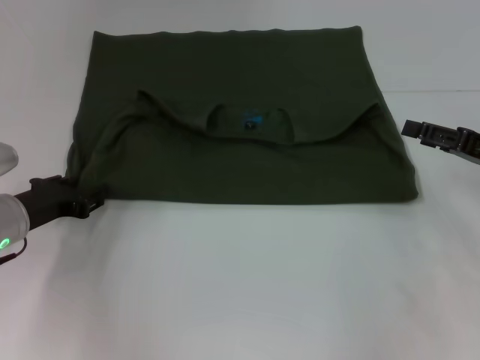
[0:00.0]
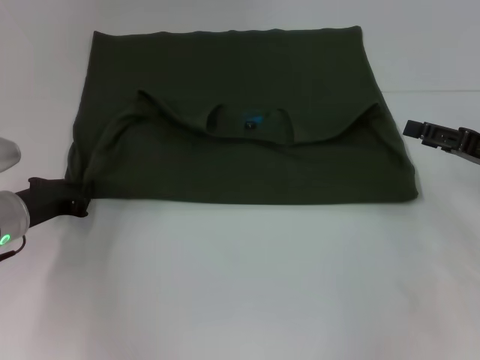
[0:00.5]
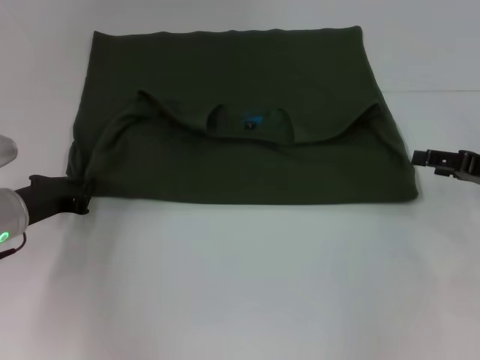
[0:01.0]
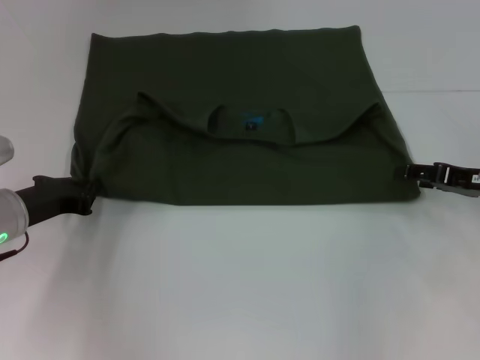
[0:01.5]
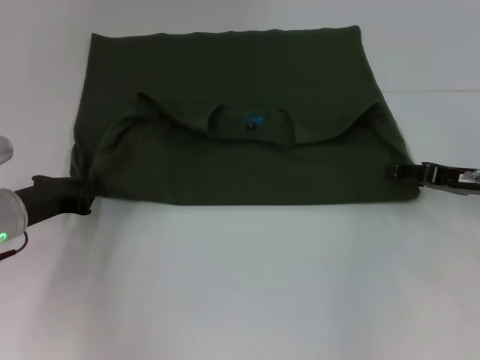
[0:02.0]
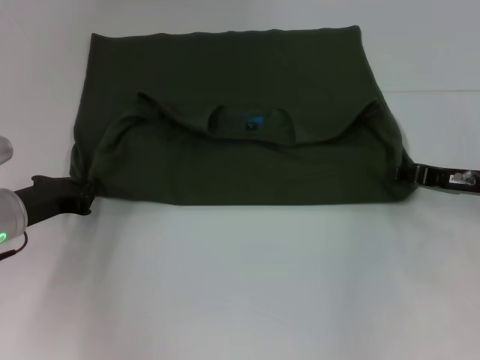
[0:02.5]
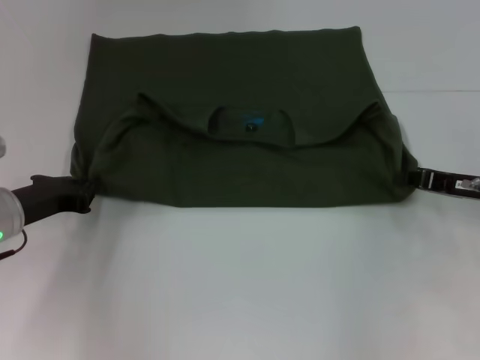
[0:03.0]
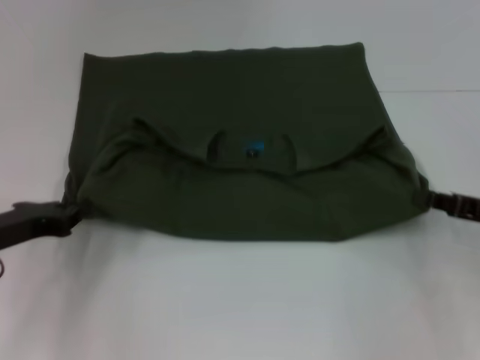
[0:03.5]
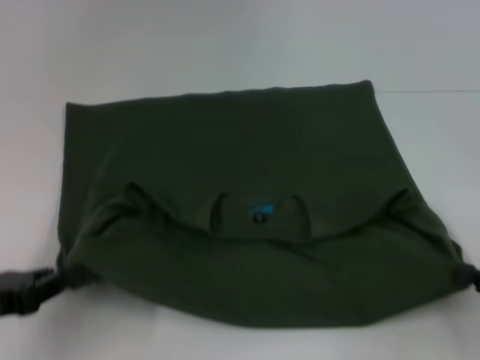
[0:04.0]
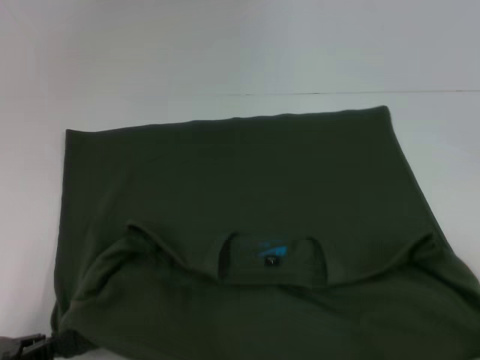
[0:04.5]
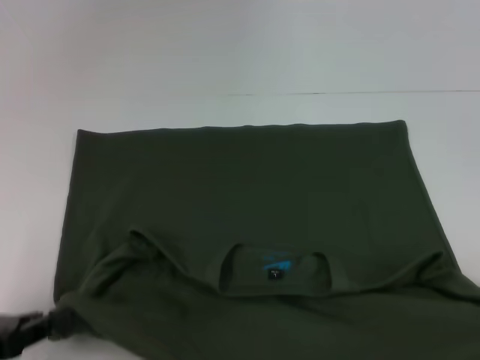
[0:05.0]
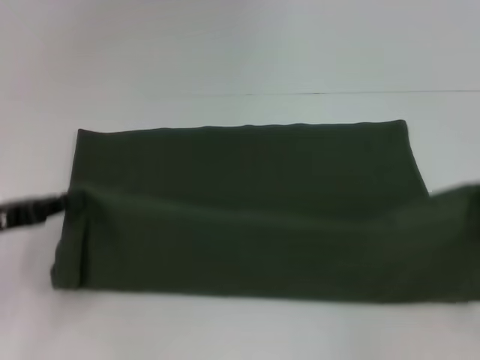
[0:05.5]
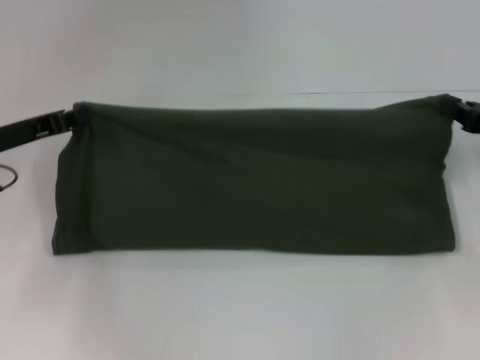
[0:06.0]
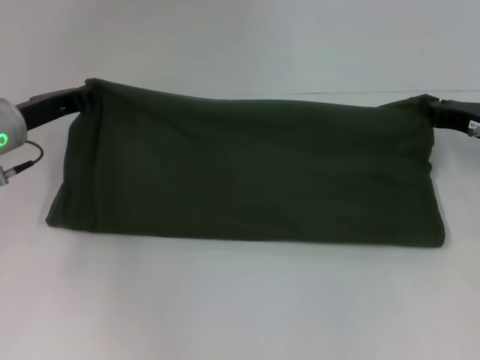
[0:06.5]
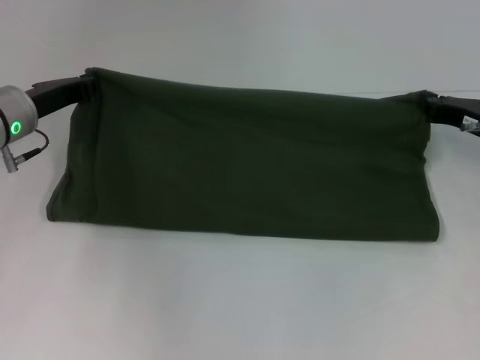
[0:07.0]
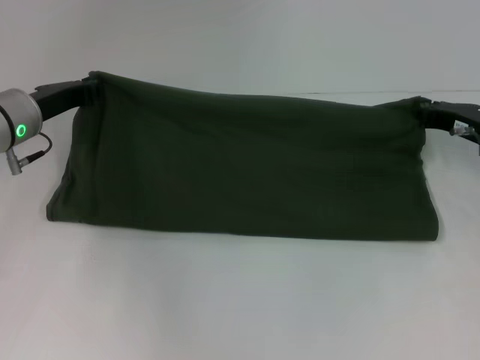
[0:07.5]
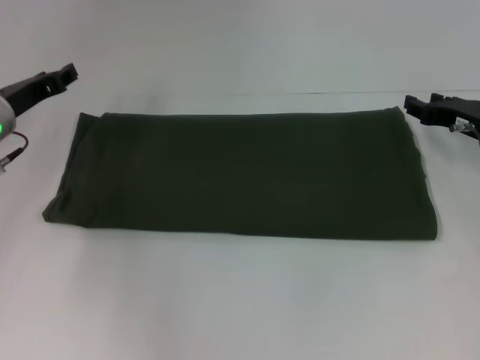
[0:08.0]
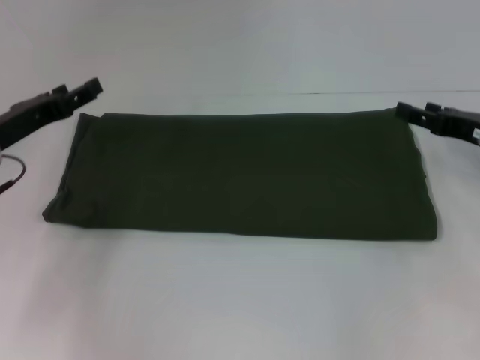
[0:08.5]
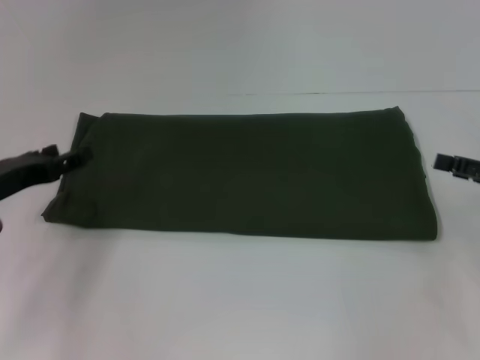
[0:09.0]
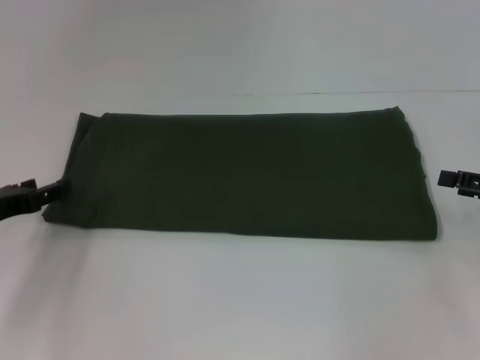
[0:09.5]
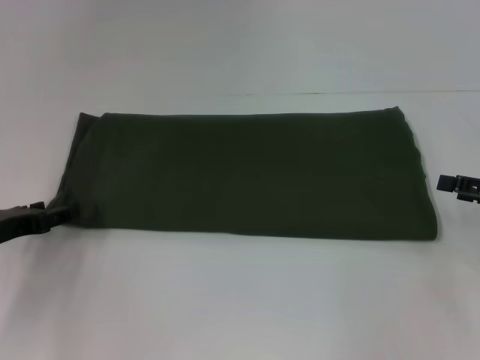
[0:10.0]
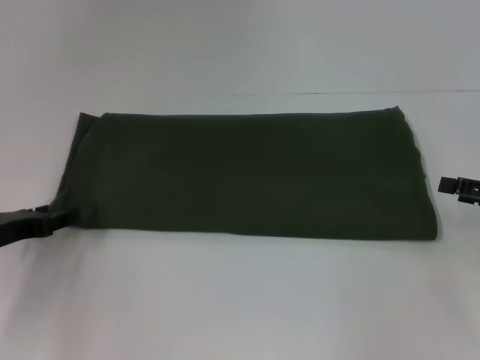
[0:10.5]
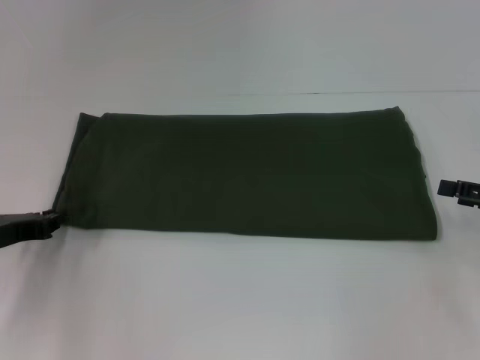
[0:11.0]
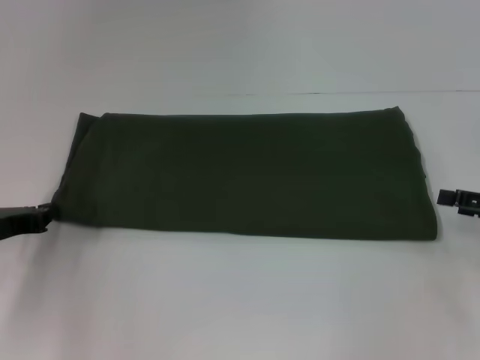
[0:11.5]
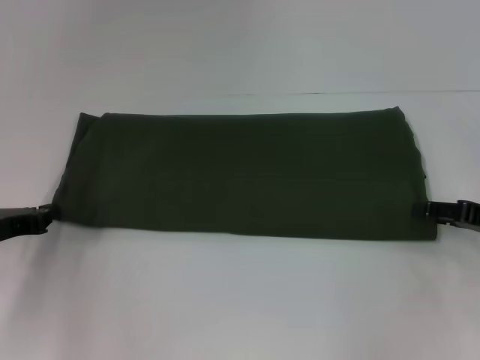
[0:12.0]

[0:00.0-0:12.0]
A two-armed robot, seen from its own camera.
Step, 0:00.0 to 0:04.5: Pull the clothes with your left hand.
Step, 0:00.0 to 0:04.5: Pull the clothes with your right hand.
Step, 0:05.0 to 0:07.5: Fold the clothes with your right hand.
0:00.0 to 0:02.0: The left gripper closes its fingers.
0:02.0 to 0:04.0: Both grippers move backward, approximately 15 cm. The right gripper closes up.
0:04.0 to 0:06.0: Both grippers travel together forward, approximately 15 cm.
0:06.0 to 0:08.0: The right gripper moves roughly 5 cm.
0:08.0 to 0:10.0: The right gripper goes roughly 15 cm backward and to the right, and opens its fingers; the left gripper moves backward, some 10 cm, and opens.

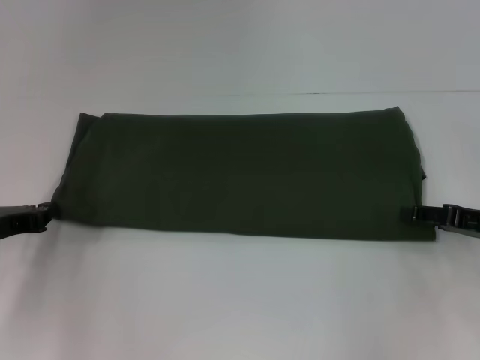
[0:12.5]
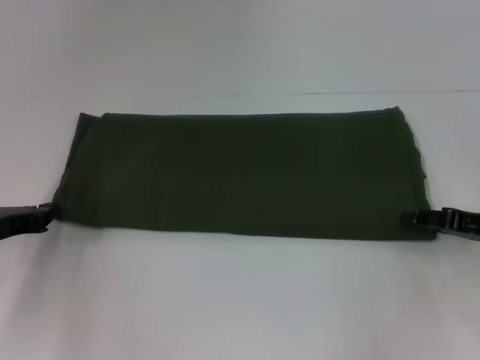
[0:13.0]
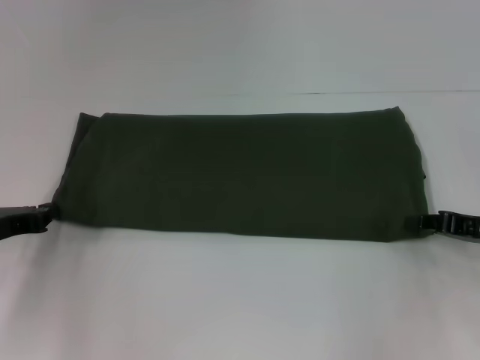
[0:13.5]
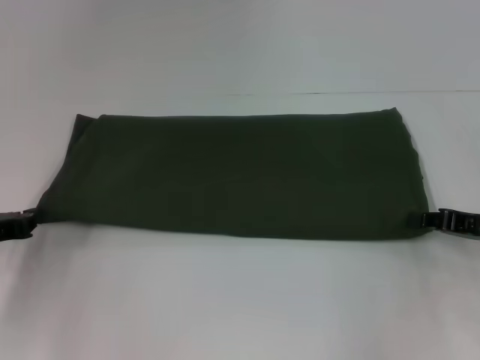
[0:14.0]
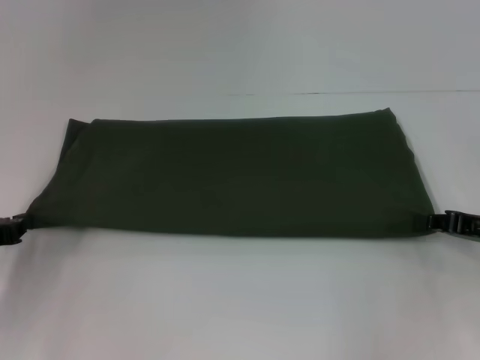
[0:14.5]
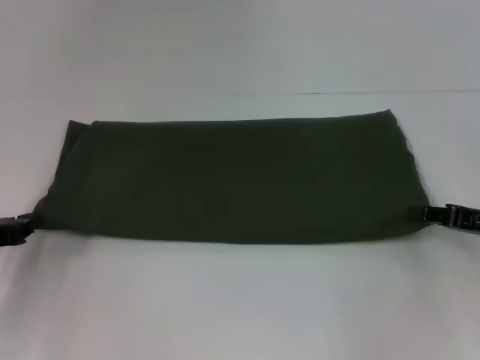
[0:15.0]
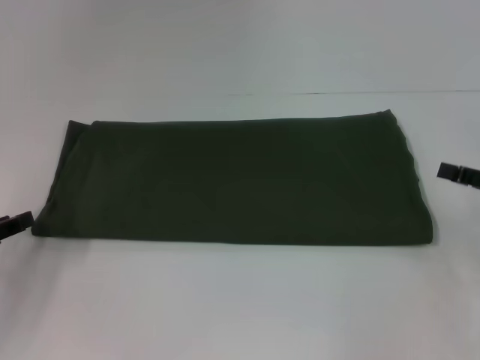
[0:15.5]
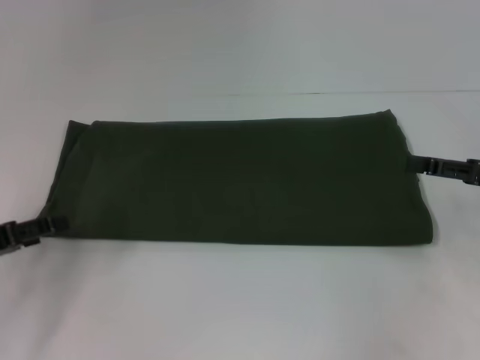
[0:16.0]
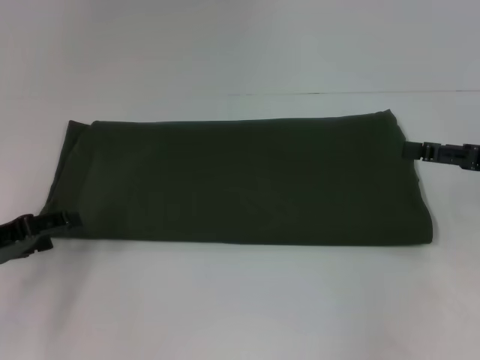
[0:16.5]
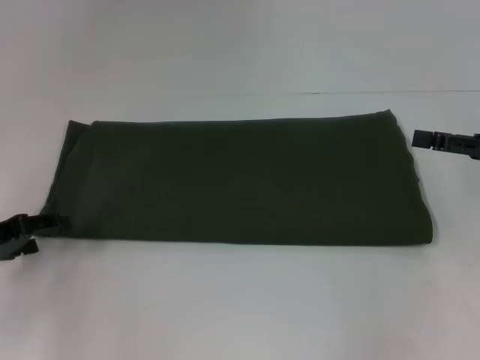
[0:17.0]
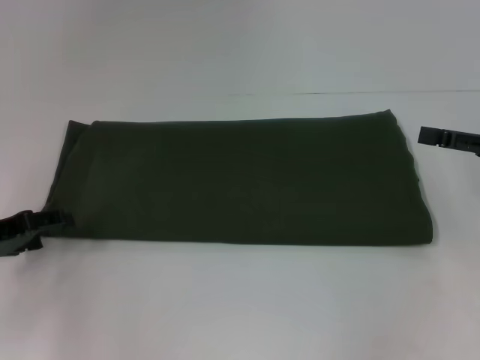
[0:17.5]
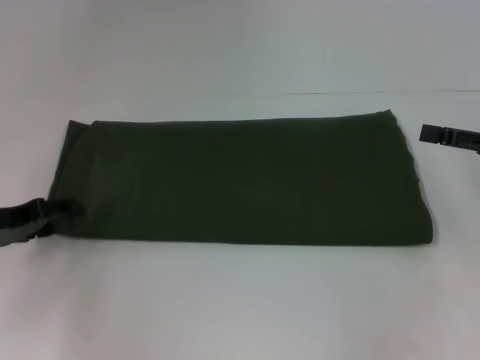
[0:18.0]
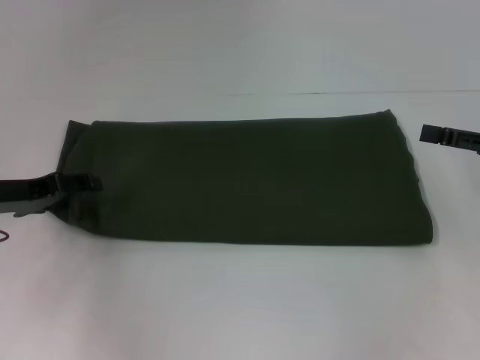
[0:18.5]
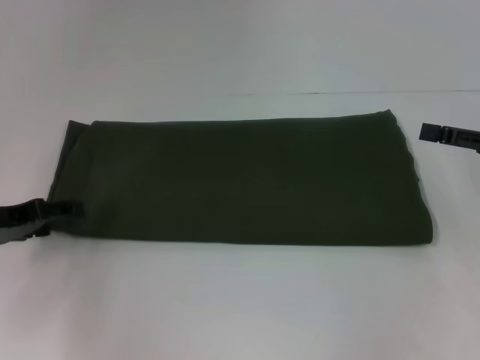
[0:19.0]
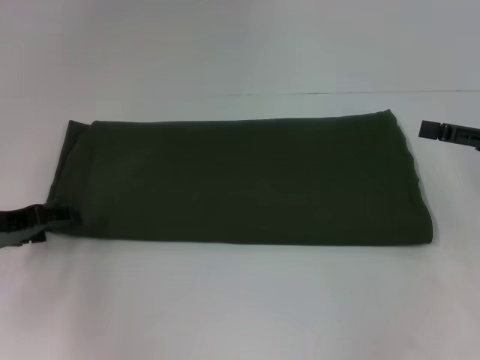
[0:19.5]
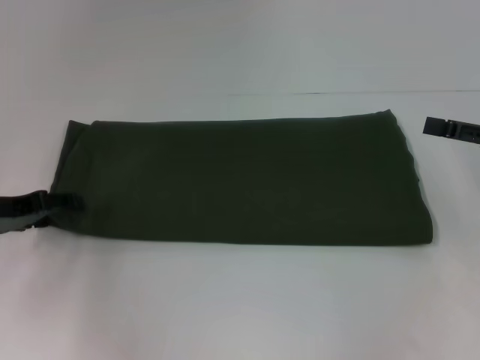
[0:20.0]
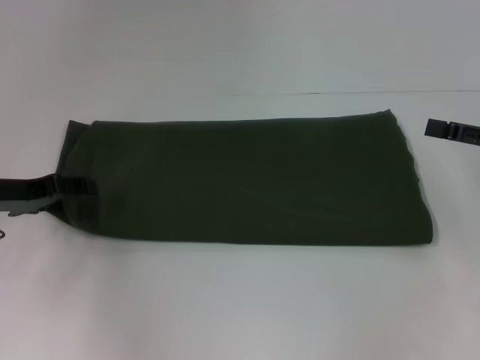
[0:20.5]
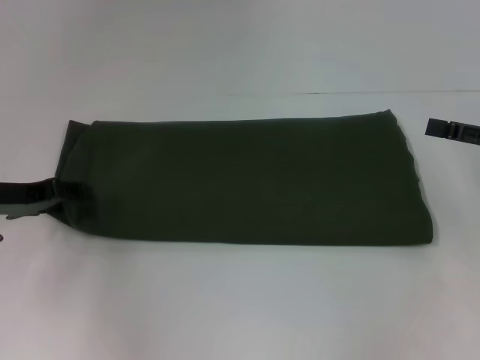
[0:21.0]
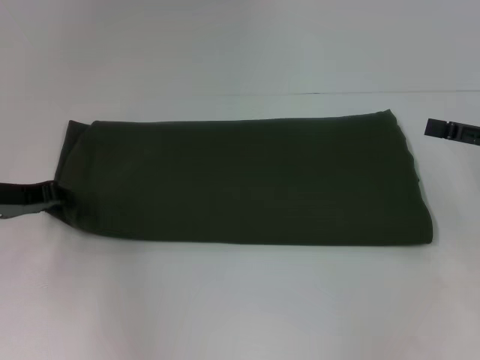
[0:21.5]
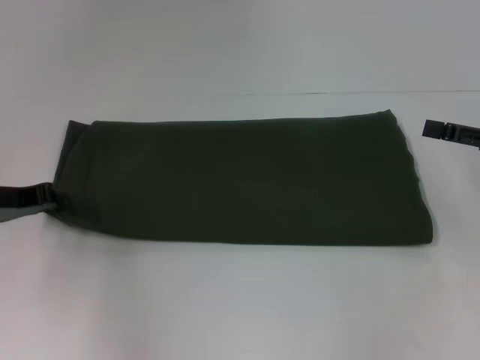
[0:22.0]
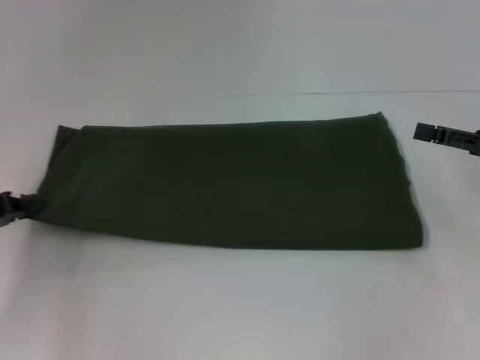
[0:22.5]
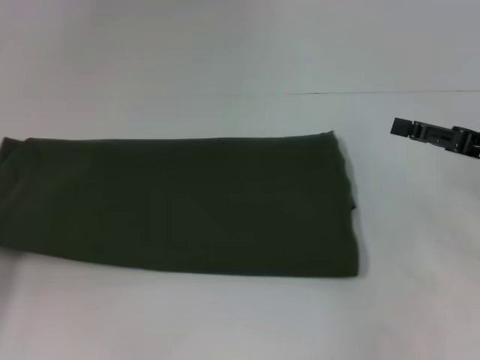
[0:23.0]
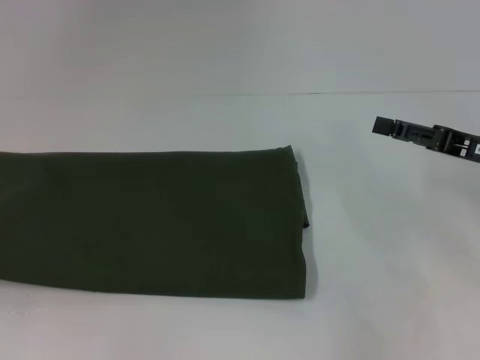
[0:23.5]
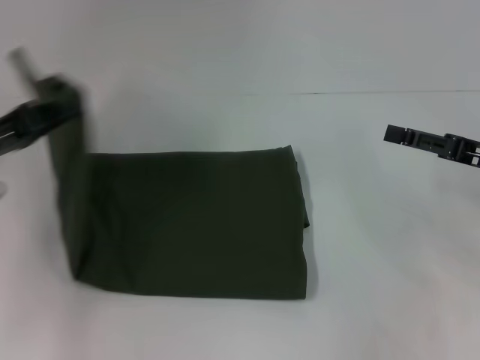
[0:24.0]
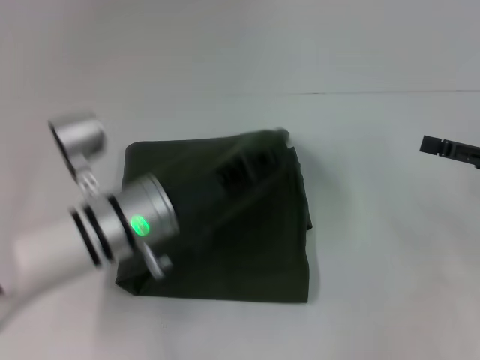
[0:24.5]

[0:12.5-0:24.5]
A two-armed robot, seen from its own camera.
0:12.5 to 0:14.5: The right gripper closes its fingers.
0:14.5 to 0:16.5: The right gripper goes approximately 5 cm upward, and opens. Meanwhile the left gripper opens up.
0:16.5 to 0:18.5: The left gripper moves forward, about 5 cm.
0:20.5 to 0:22.5: The left gripper changes place by approximately 5 cm, and closes its fingers.
0:22.5 to 0:24.5: The left gripper shifts some 20 cm to the right.

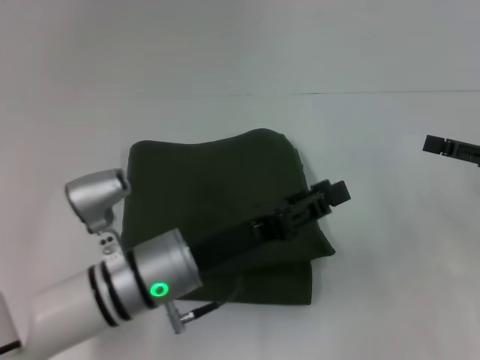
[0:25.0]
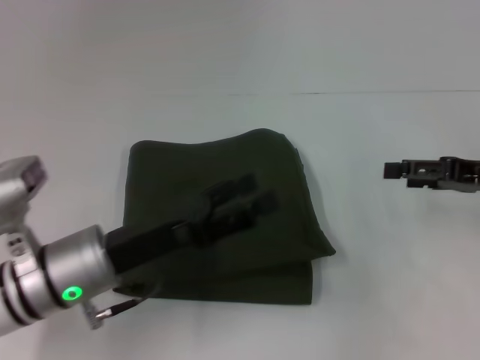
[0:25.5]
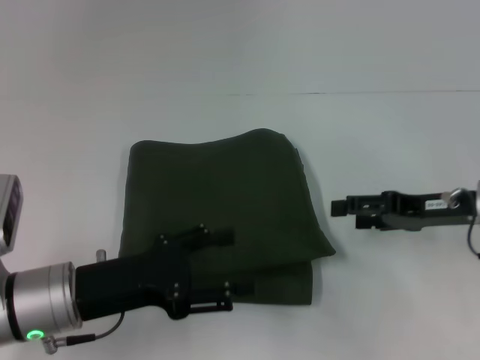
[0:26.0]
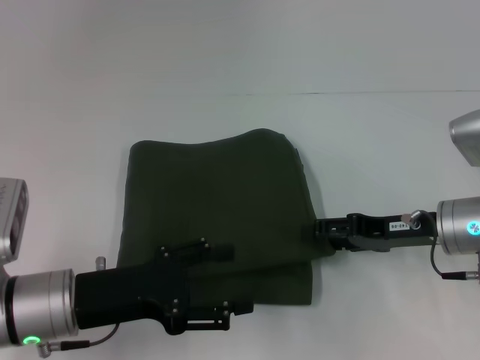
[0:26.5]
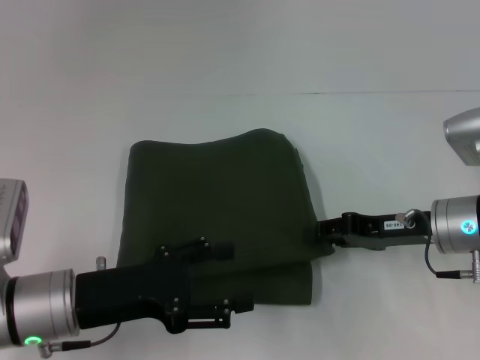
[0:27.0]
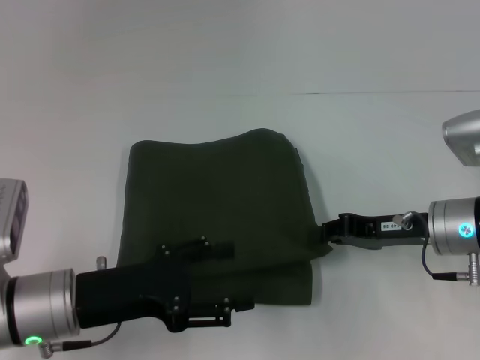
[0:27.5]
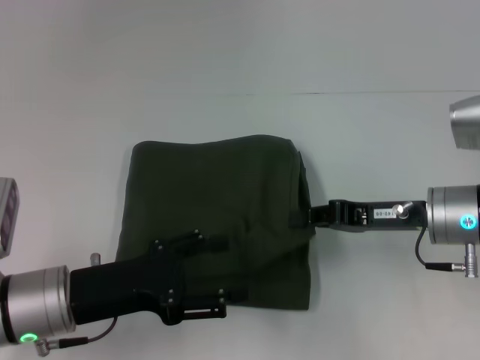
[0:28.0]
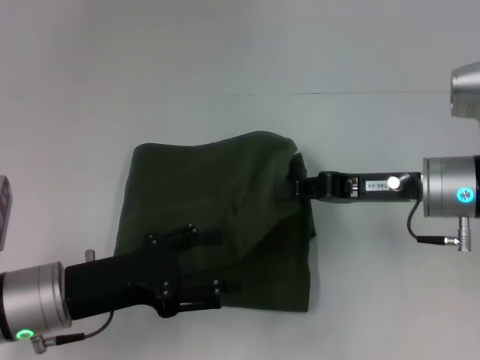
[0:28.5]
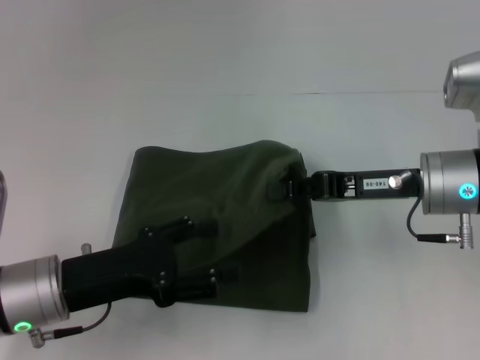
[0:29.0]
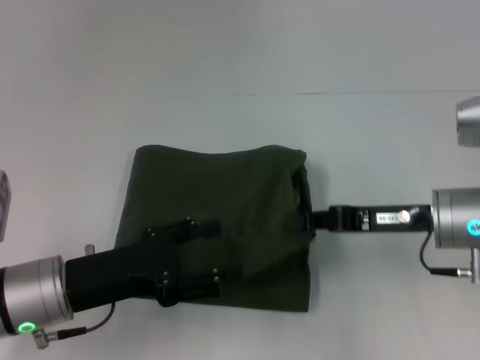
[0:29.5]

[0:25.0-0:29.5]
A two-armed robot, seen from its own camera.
0:25.0 to 0:27.0: The grippers both shift to the left by some 10 cm. The left gripper opens.
0:27.0 to 0:29.5: The right gripper closes up.
